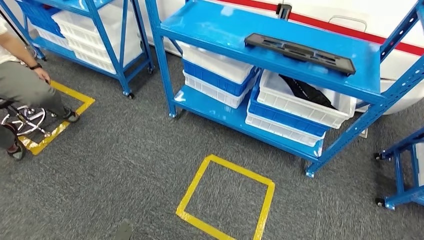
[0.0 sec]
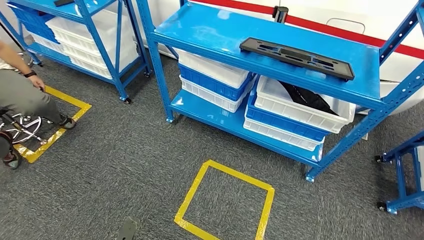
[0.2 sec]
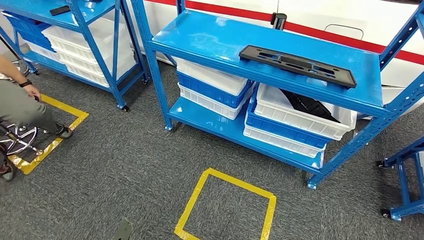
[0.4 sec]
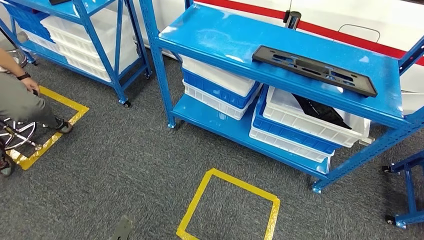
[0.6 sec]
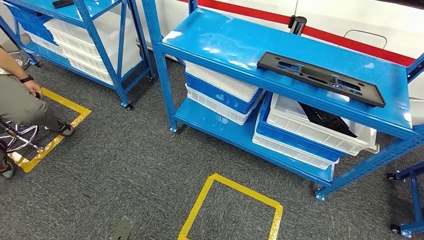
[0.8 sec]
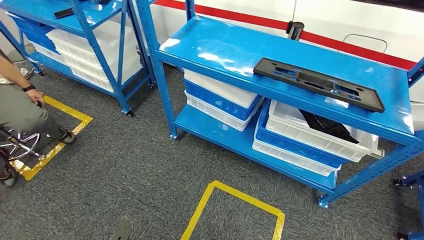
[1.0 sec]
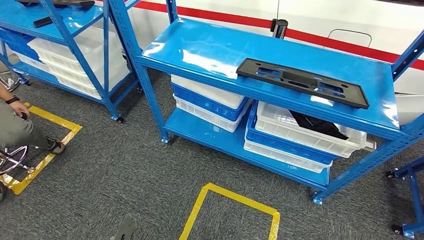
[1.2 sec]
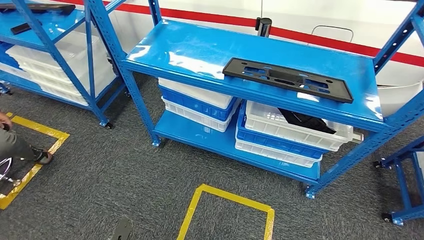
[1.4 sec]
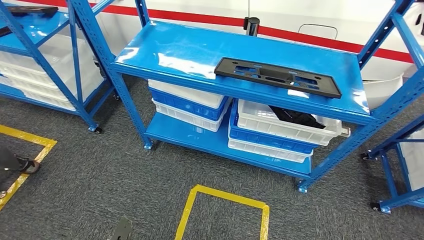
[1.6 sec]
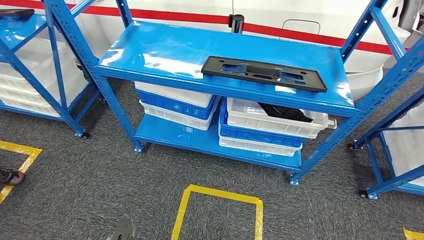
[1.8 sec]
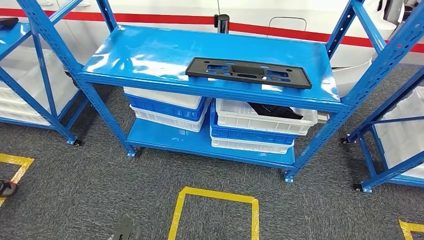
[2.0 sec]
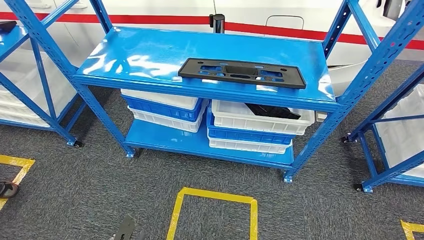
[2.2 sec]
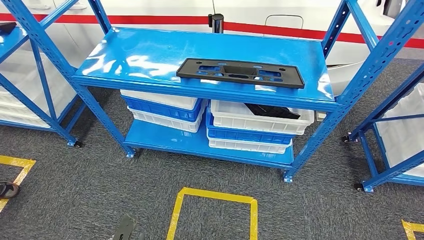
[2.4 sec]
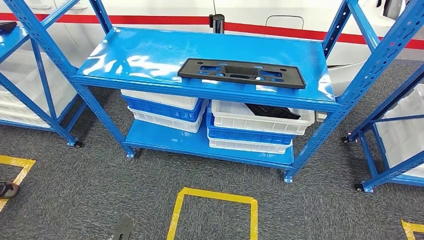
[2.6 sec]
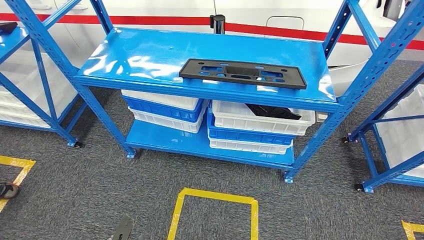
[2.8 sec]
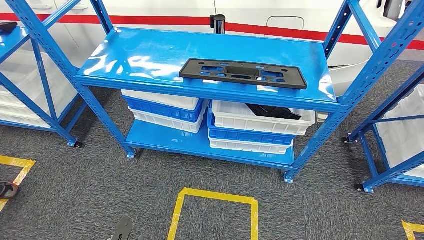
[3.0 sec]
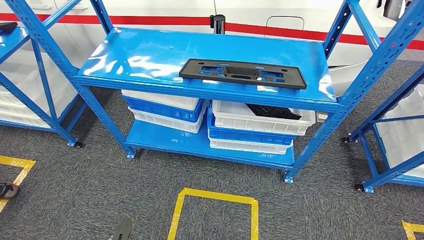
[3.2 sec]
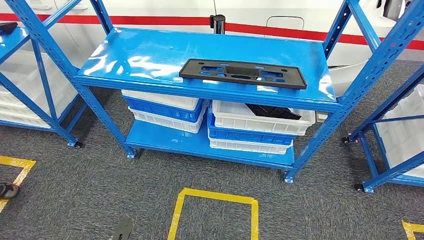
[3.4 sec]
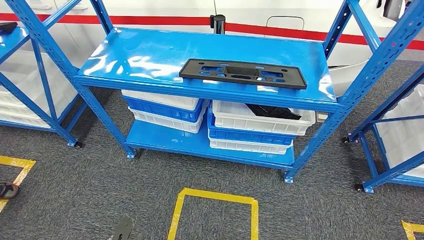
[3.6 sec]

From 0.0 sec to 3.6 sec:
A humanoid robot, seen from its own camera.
Step, from 0.0 sec to 3.6 sec: Move to the initial position of the shelf.
